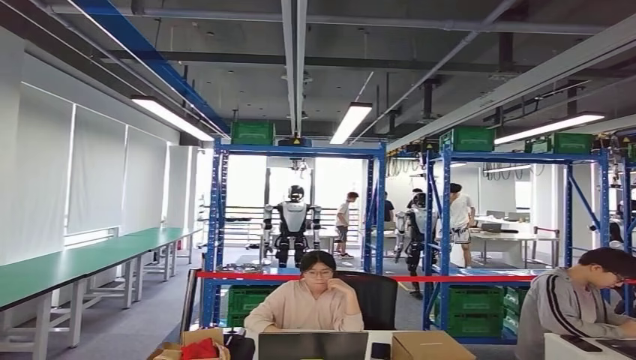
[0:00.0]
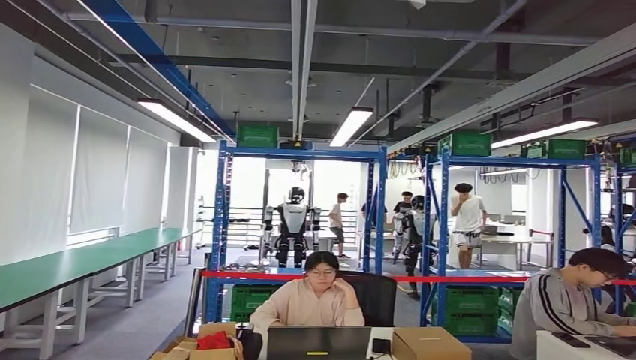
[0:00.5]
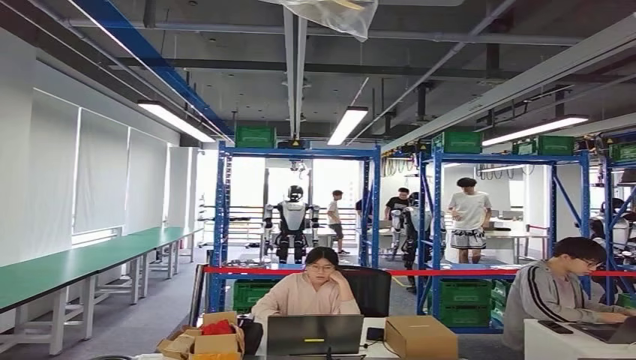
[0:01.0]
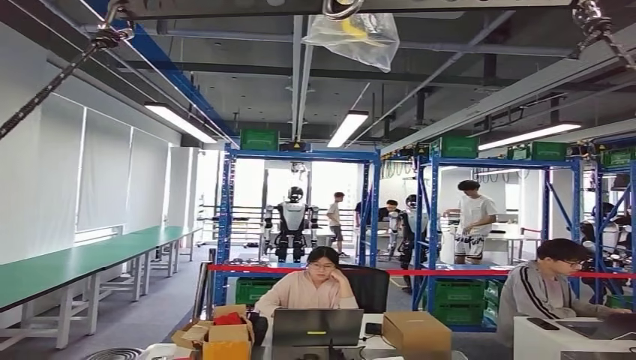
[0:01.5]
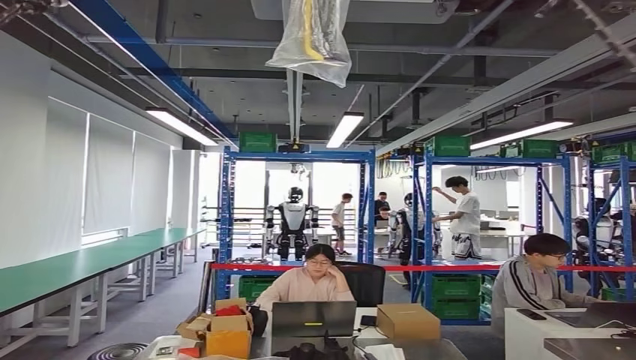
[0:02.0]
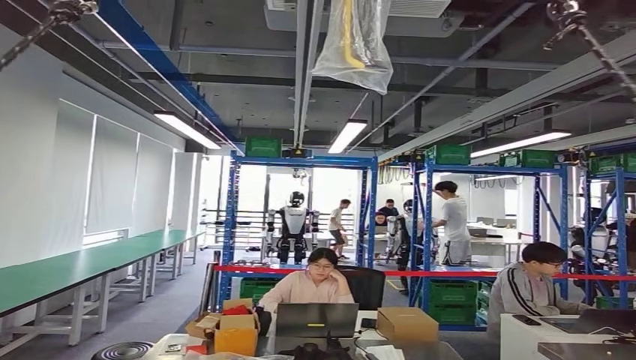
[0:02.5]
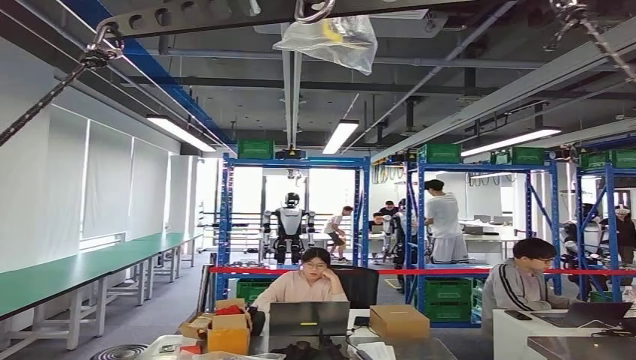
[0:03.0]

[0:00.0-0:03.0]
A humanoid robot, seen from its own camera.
Step, 0:00.5 to 0:03.0: Return to the initial position at the workbench.
